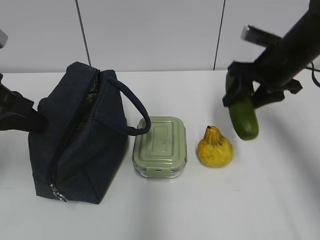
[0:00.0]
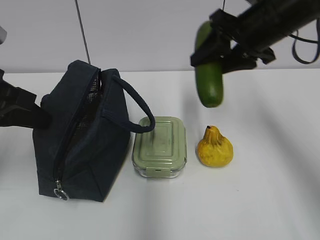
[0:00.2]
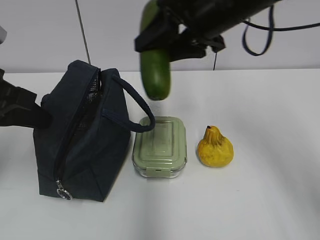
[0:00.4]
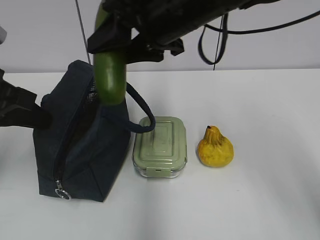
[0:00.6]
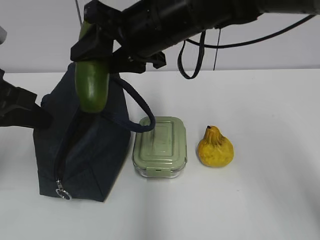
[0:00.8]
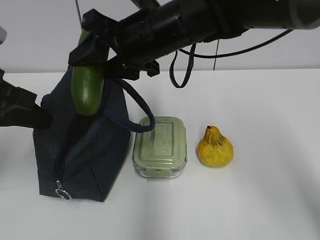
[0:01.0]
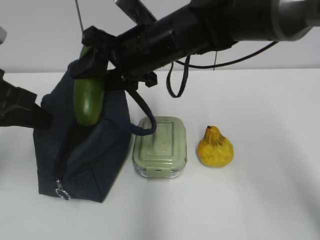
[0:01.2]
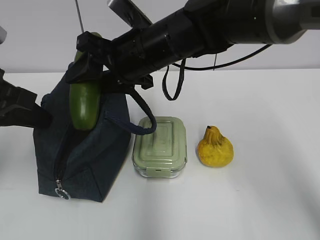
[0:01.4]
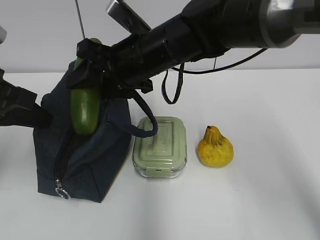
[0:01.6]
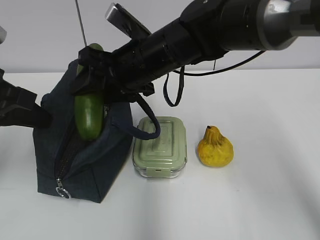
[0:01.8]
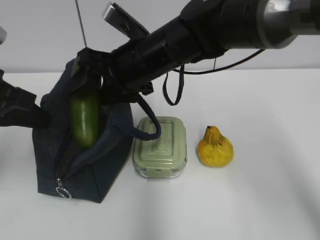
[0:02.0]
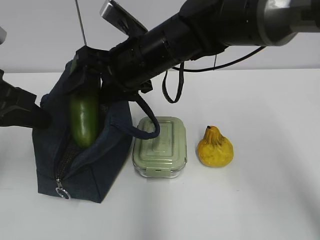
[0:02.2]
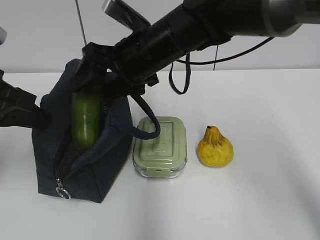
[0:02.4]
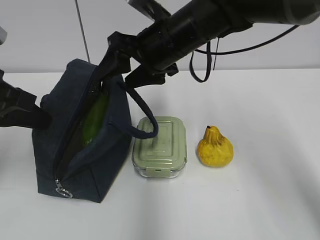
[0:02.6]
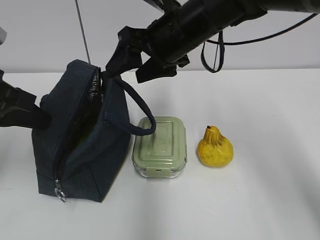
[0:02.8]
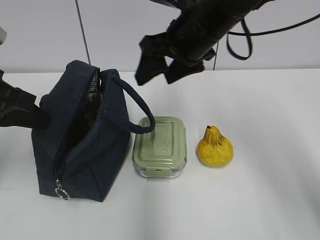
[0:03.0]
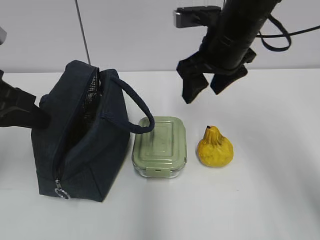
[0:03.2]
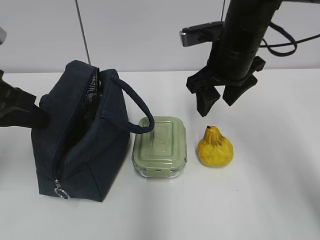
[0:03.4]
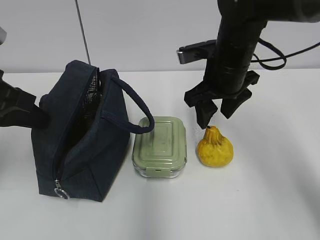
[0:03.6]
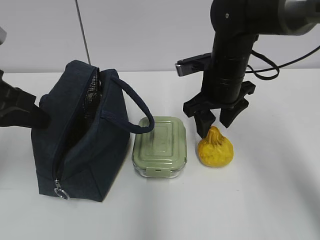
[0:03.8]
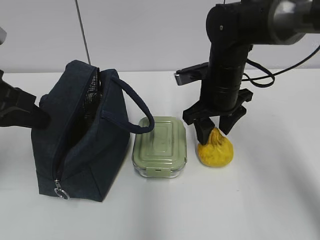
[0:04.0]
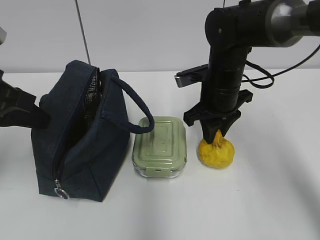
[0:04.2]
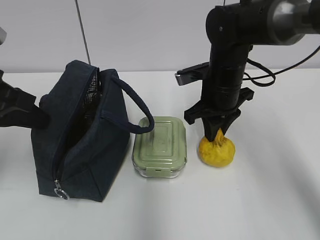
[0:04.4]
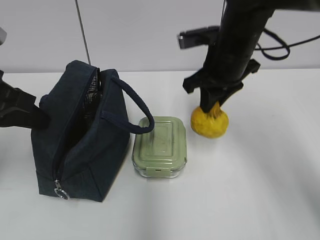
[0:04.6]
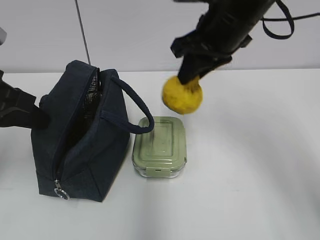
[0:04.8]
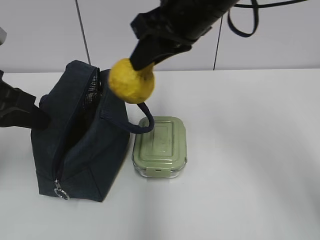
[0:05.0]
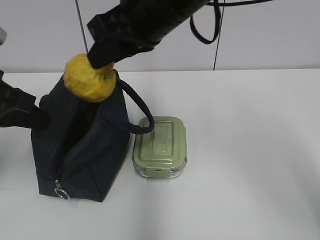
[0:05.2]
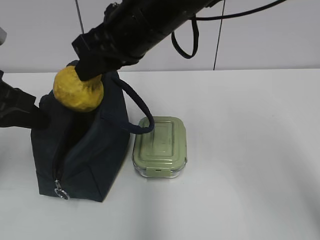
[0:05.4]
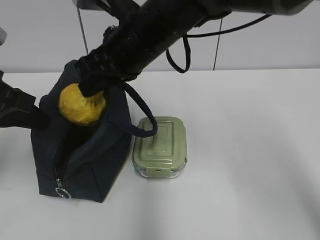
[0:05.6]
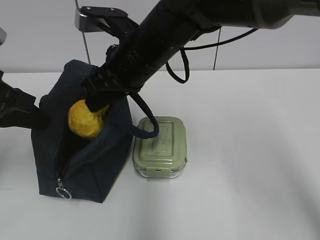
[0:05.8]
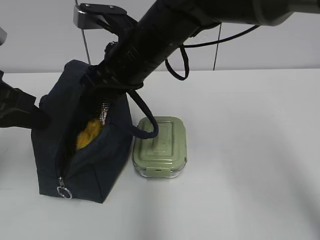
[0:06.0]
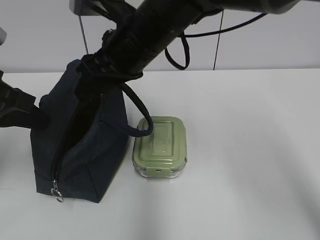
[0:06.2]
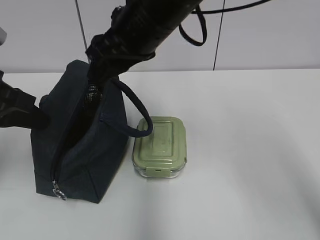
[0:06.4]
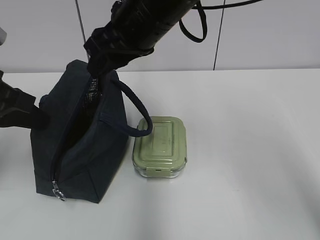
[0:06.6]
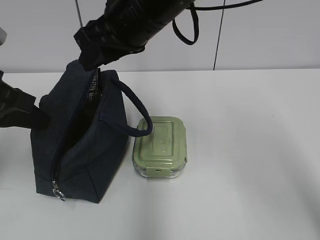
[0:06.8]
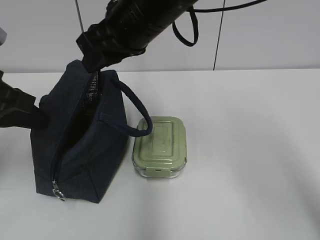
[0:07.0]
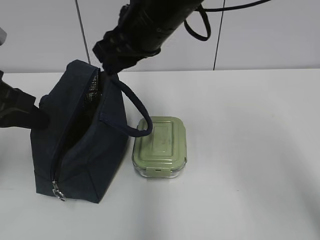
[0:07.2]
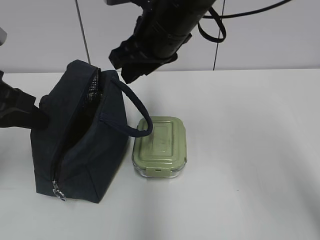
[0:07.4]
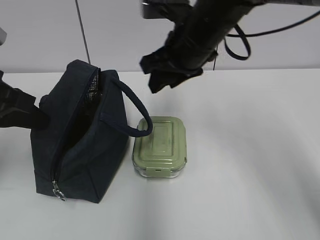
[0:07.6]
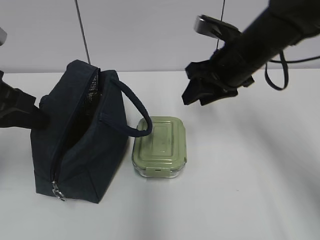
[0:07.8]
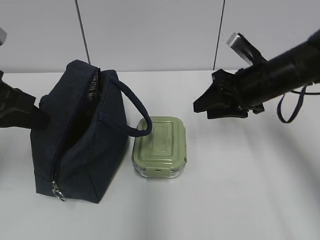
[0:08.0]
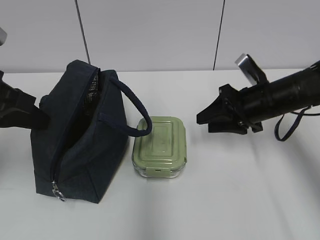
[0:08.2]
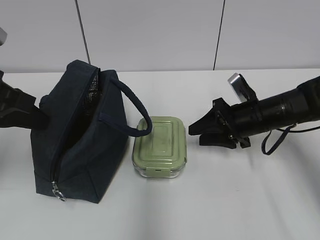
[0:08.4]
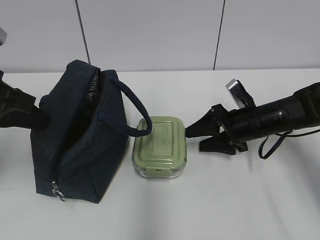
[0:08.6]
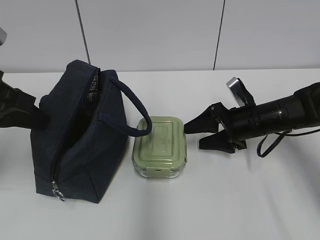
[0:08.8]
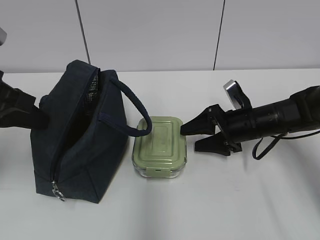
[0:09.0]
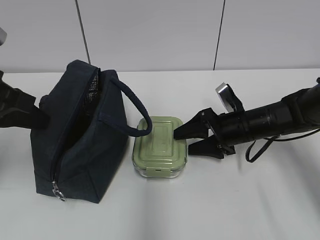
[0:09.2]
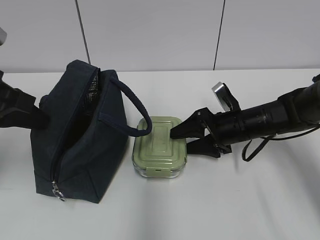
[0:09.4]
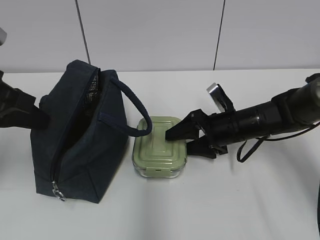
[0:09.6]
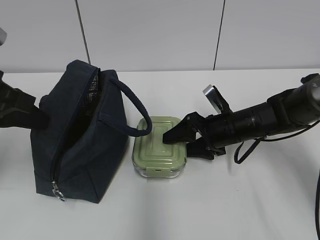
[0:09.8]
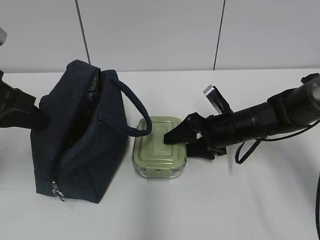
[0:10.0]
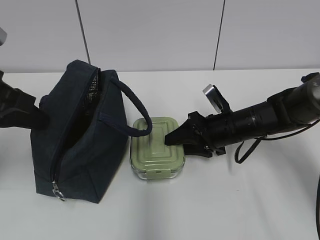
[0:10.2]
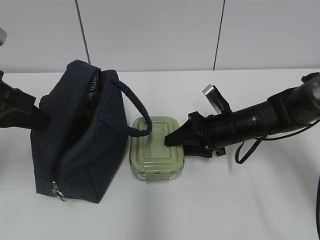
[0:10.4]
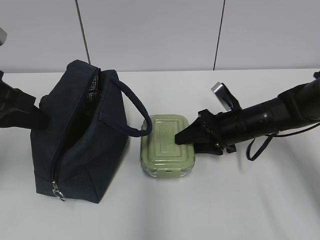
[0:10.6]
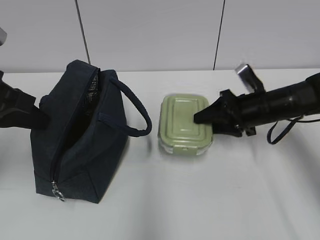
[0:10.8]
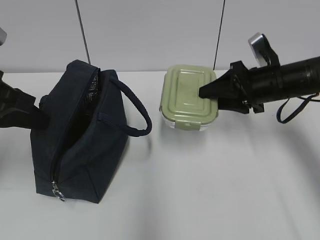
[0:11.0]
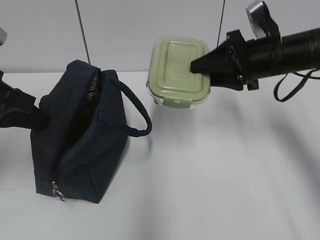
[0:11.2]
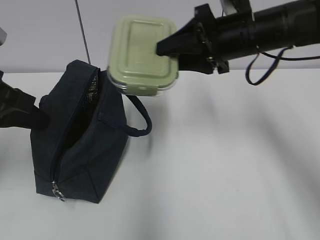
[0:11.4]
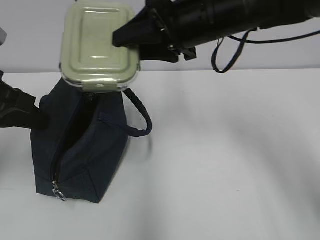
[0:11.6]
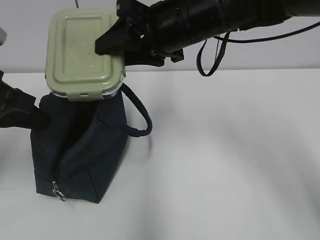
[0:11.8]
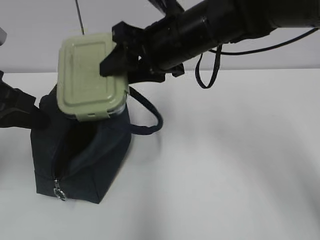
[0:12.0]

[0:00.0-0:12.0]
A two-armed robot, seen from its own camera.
Step, 0:01.6 to 0:02.6: Place it into the bag with your right hand.
Step, 0:02.8 to 0:04.2: Grab the pear with your right hand.
Step, 0:04.4 to 0:06.0: Place it into the bag with your right hand.
Step, 0:06.2 to 0:10.2: Grab the lunch box with your right hand.
0:00.0 to 0:01.6: The right gripper goes about 20 cm to the left.
0:01.6 to 0:03.0: The right gripper travels to the right by roughly 10 cm.
0:03.0 to 0:04.4: The right gripper is displaced downward by approximately 10 cm, and closes its fingers.
0:04.4 to 0:06.0: The right gripper shifts roughly 15 cm to the left and upward, and opens up.
0:06.0 to 0:07.6: The right gripper shifts approximately 10 cm to the right.
0:07.6 to 0:09.0: The right gripper moves downward and to the right, approximately 20 cm, and opens its fingers.
0:09.0 to 0:10.4: The right gripper closes its fingers.
0:10.4 to 0:12.0: The right gripper moves upward and to the left, some 20 cm.

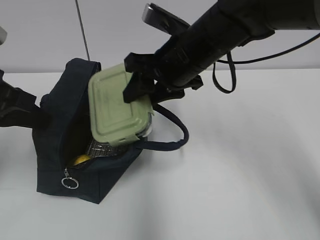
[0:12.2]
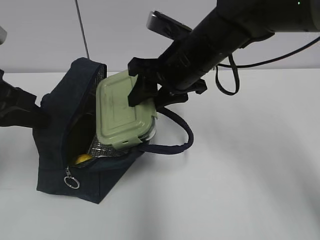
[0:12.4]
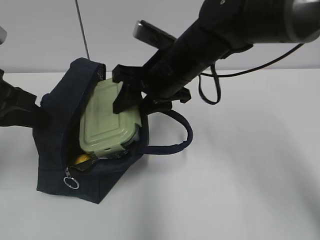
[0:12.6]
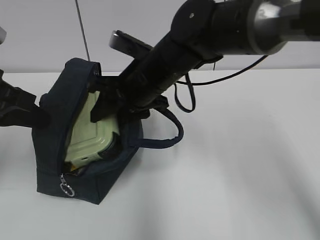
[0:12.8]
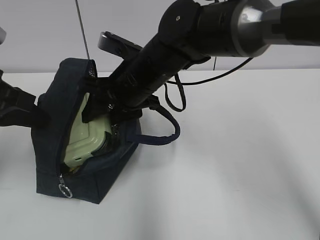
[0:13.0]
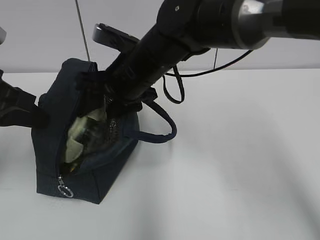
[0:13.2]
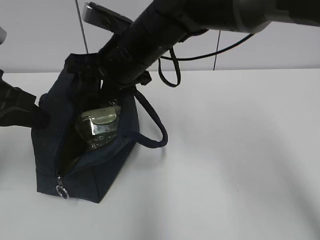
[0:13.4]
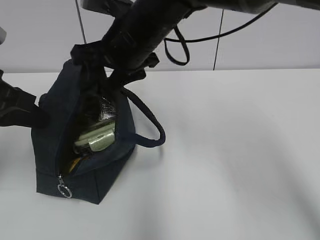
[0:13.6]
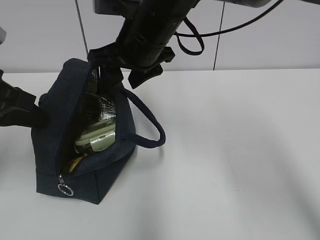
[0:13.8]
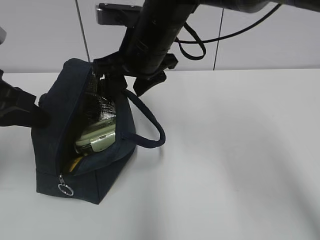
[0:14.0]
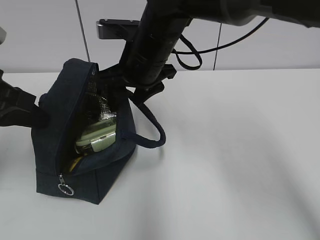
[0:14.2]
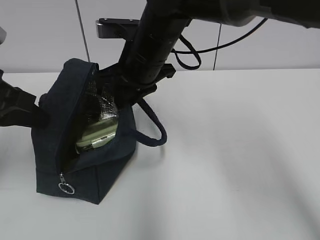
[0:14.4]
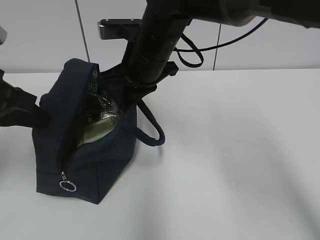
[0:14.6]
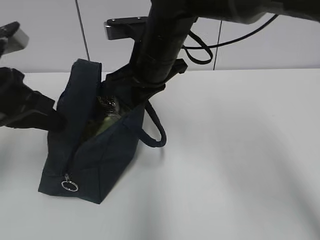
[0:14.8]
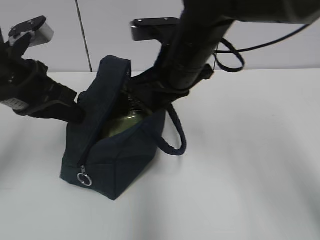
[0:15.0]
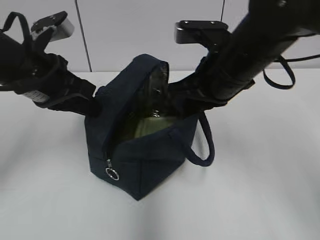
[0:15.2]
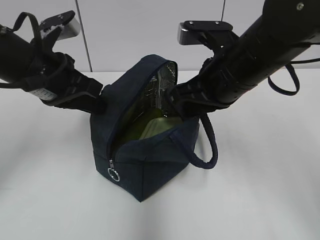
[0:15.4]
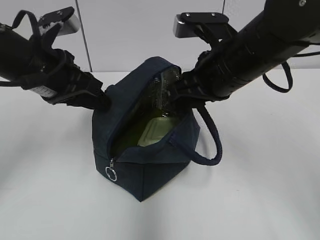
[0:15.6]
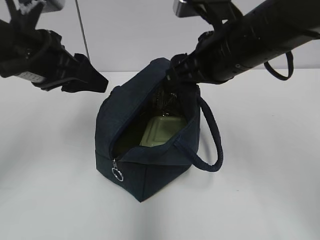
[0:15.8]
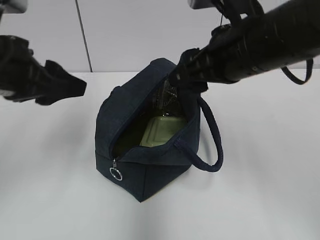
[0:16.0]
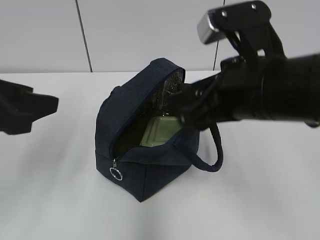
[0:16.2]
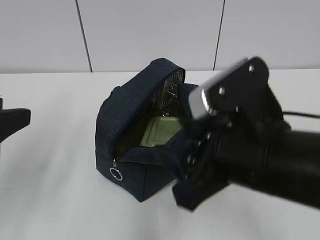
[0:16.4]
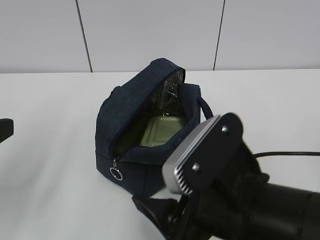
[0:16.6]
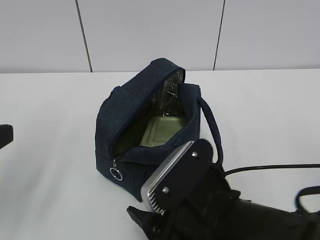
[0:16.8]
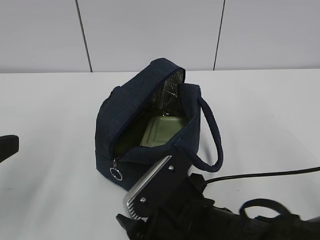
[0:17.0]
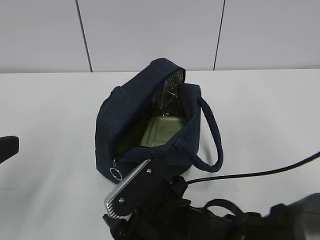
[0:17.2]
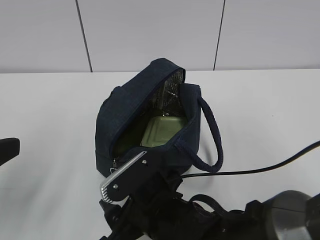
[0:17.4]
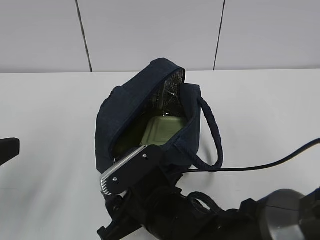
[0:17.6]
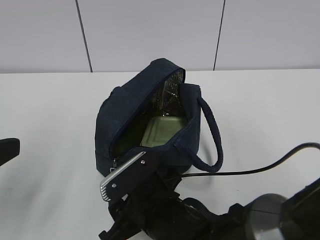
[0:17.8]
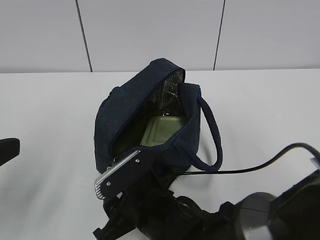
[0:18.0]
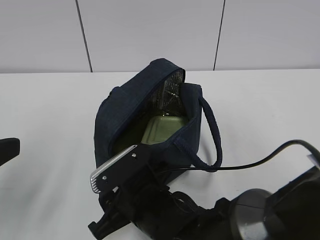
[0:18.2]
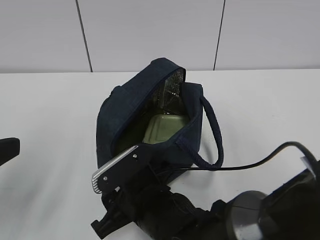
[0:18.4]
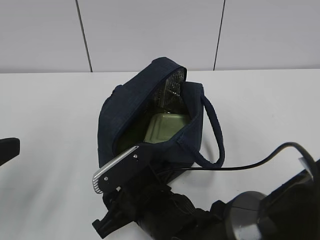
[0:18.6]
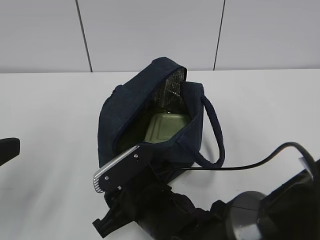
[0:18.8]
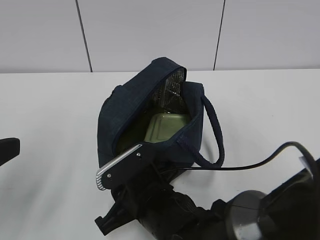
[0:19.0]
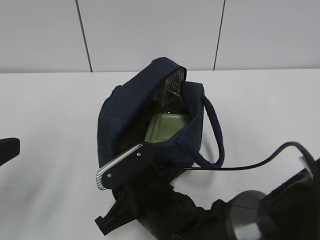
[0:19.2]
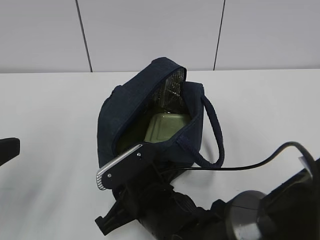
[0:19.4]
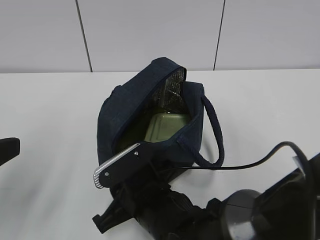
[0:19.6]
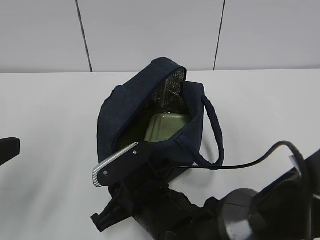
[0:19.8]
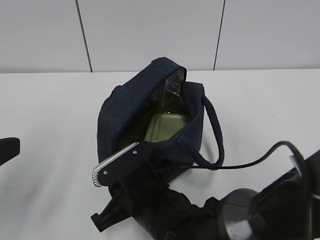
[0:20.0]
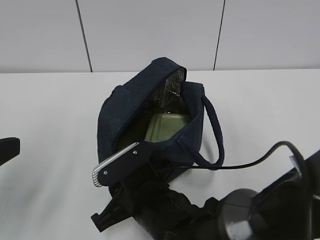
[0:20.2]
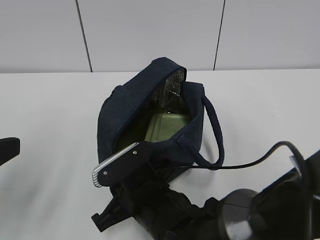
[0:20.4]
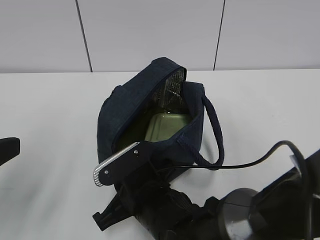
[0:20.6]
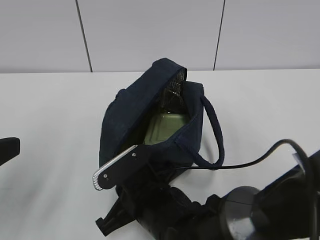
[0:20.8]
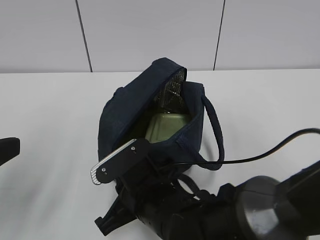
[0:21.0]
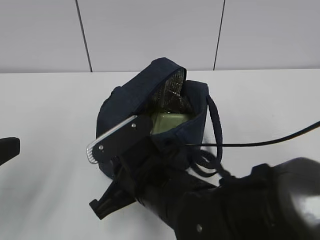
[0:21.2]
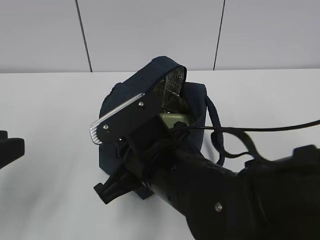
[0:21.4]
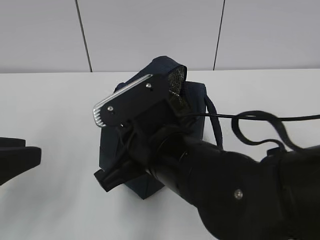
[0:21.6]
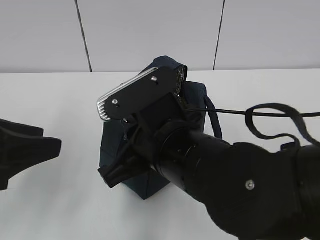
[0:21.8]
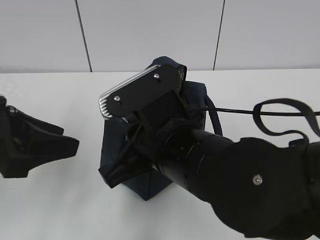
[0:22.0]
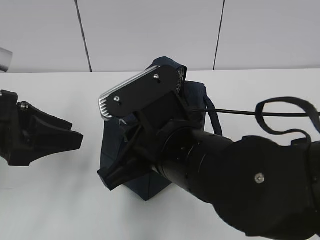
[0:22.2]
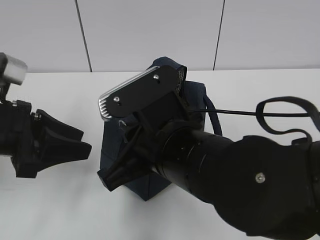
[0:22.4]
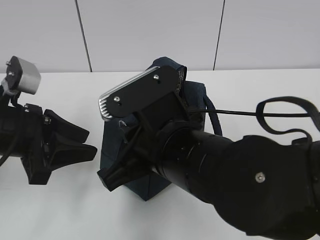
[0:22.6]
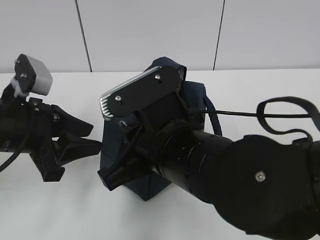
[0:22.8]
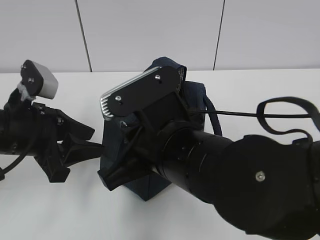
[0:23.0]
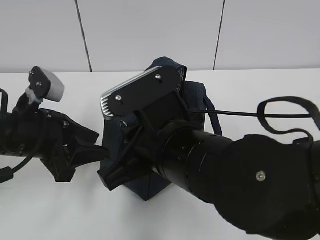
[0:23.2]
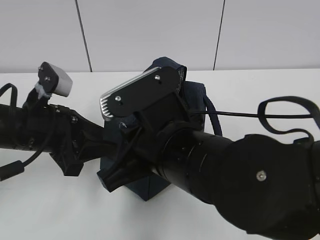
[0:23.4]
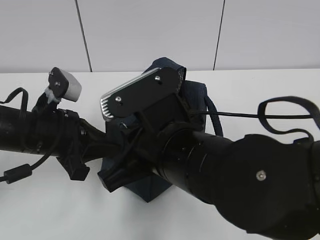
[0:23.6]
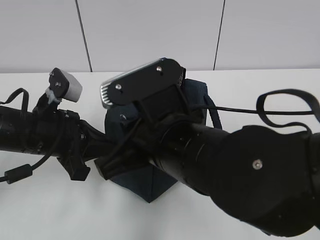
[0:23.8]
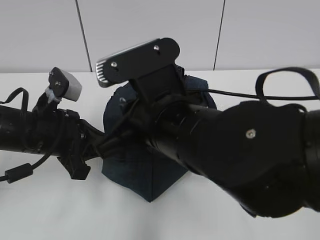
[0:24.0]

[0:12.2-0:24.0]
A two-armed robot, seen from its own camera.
Step, 0:13.6 to 0:14.4: Grab the lunch bag with your right hand.
Step, 0:14.6 to 0:15.4: Move the lunch bag to the right.
0:12.2 to 0:13.6: The right gripper shifts roughly 5 cm to the left.
0:13.6 to 0:15.2: The right gripper shifts some 10 cm to the right and backward, and closes, while the left gripper heads to the right, covering approximately 5 cm.
0:15.2 to 0:16.6: The right gripper heads backward, covering about 15 cm, and opens up; the left gripper goes approximately 20 cm backward and to the left, and opens its fingers.
0:16.6 to 0:18.2: The right gripper is displaced downward, to the left and forward by some 15 cm.
0:18.2 to 0:19.6: The two grippers keep their place.
0:19.6 to 0:21.0: There are only small adjustments of the grippers.
0:21.0 to 0:22.6: The right gripper moves upward, some 10 cm. Meanwhile the left gripper heads forward and downward, covering some 15 cm.
0:22.6 to 0:24.0: The left gripper changes place by some 5 cm, and closes its fingers.
